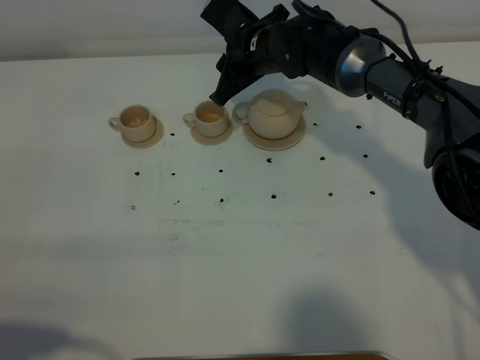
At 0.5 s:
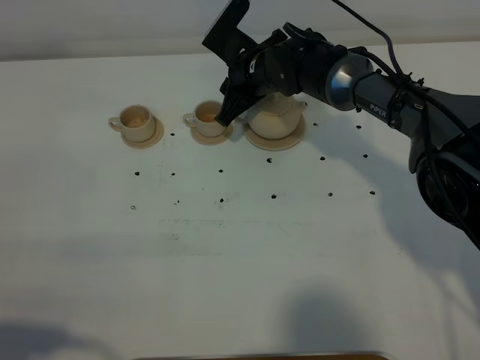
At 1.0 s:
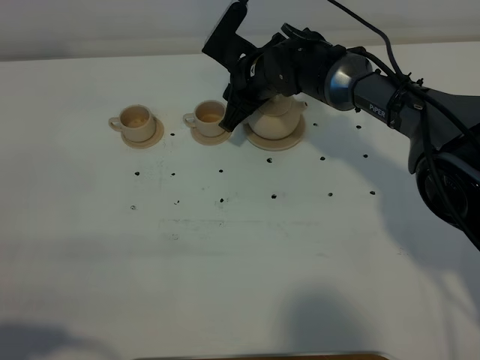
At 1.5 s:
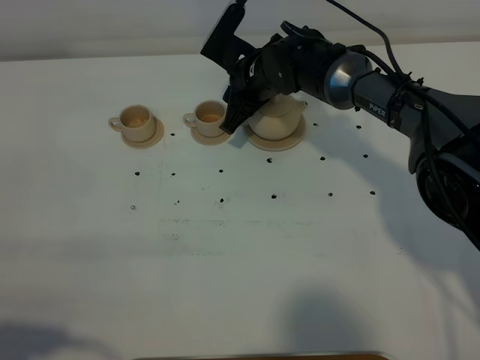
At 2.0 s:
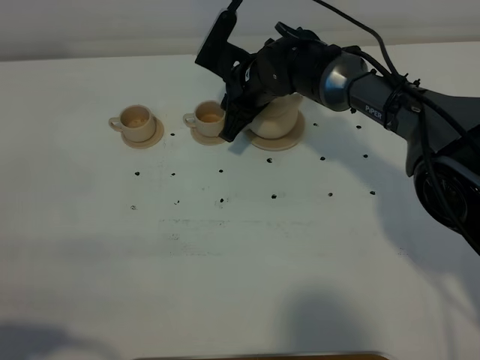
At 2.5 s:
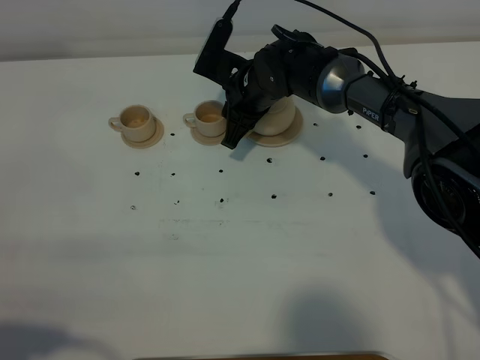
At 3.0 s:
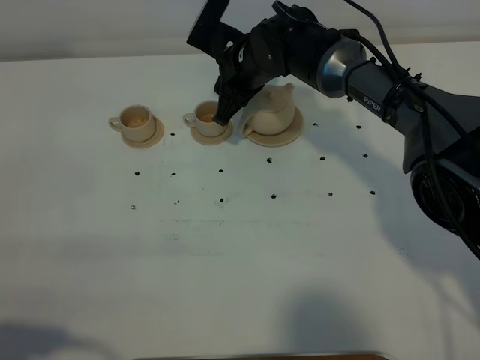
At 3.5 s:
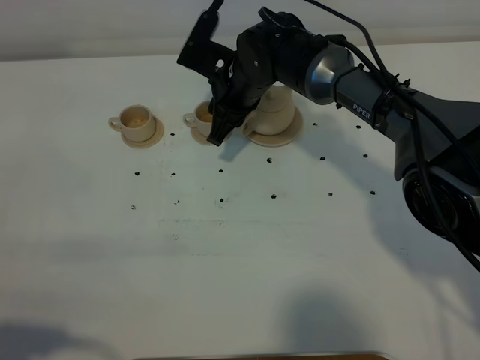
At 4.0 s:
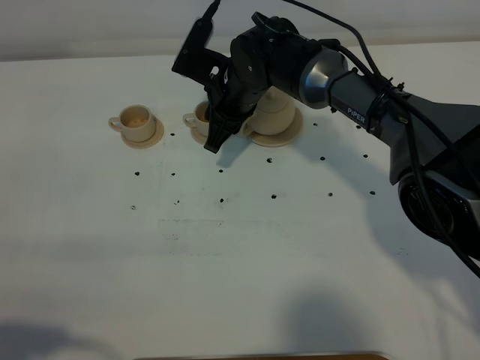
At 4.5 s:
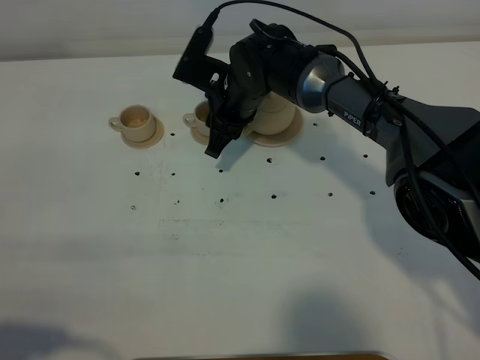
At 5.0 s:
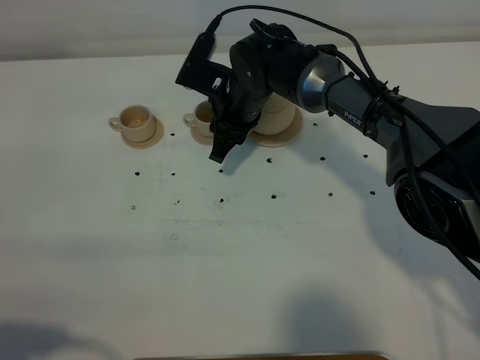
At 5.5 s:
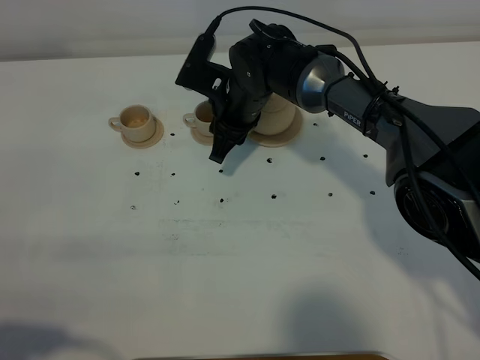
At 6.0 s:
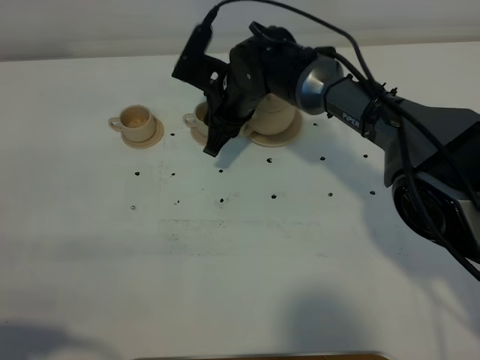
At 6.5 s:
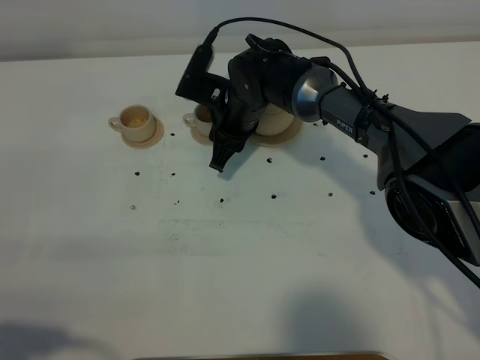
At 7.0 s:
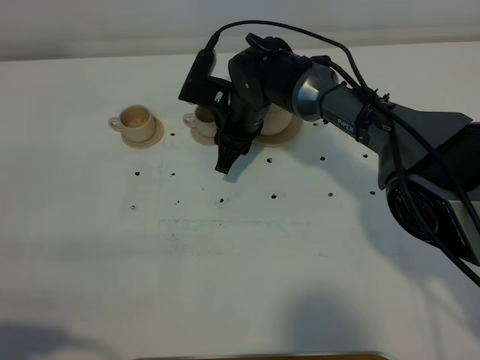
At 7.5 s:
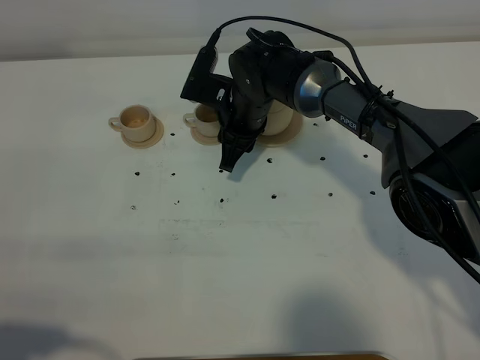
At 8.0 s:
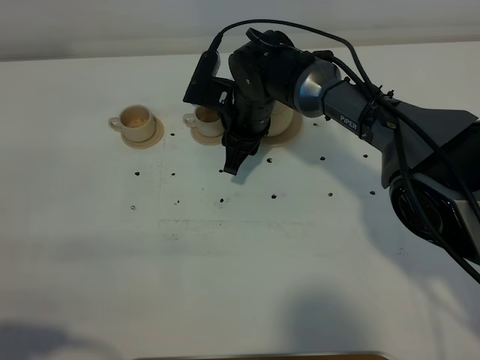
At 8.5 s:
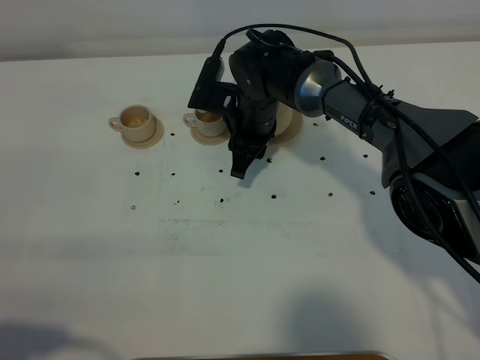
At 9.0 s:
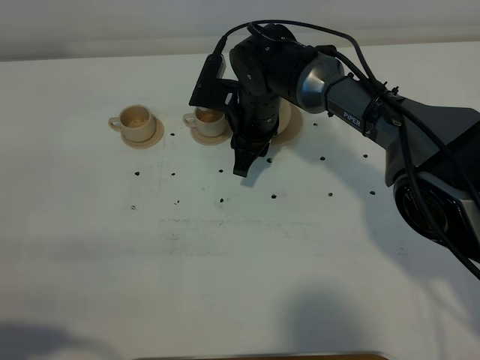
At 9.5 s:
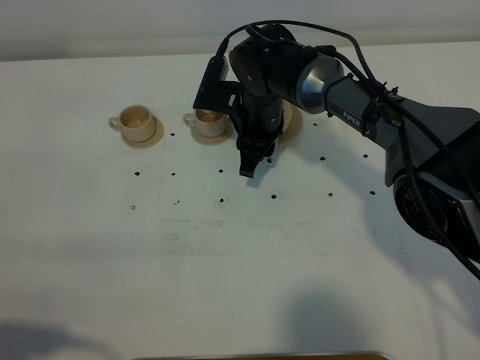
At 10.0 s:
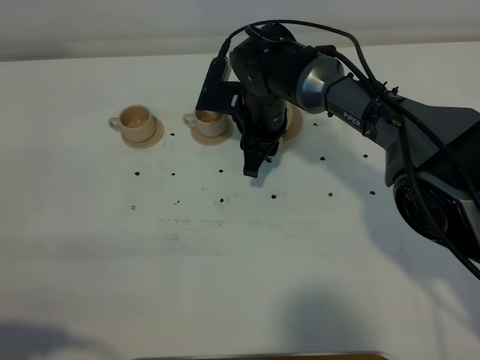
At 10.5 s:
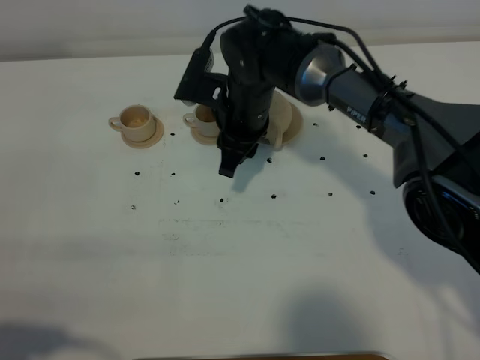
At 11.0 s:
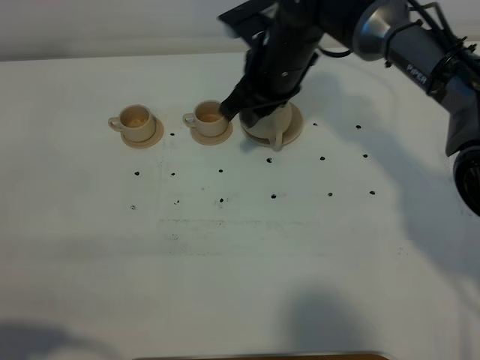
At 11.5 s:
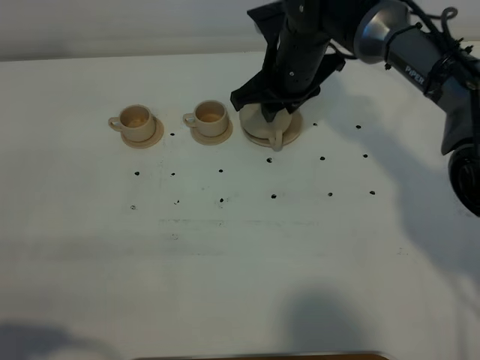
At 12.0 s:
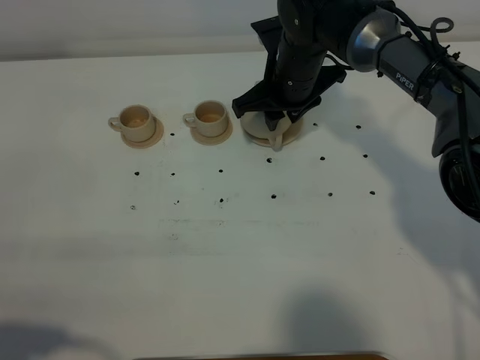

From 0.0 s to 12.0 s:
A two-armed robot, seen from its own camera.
Task of the whole recording: grasp the brown teapot and pour the tea into the two brown teacups one by one, put the brown teapot back in its original place.
From 0.0 s to 2.0 s: The grippers stay close to where they were, moving slightly.
From 2.0 s to 8.0 s: The grippers move only a little.
From 8.0 s to 10.0 s: The grippers make only small movements.
From 10.0 s to 12.0 s: The right gripper shifts by some 5 cm.

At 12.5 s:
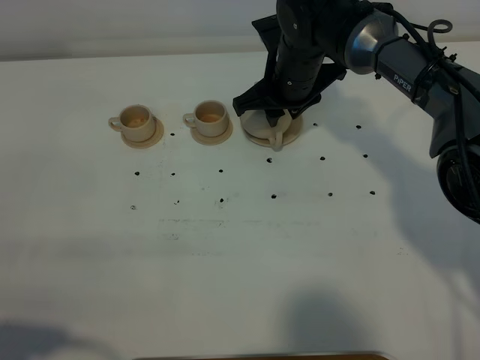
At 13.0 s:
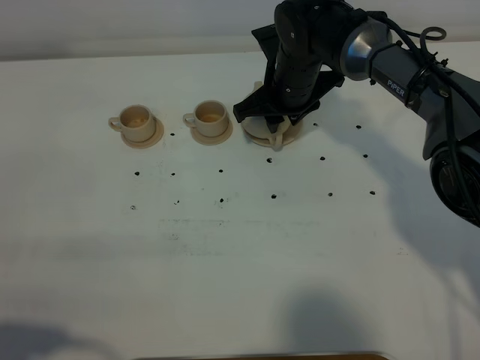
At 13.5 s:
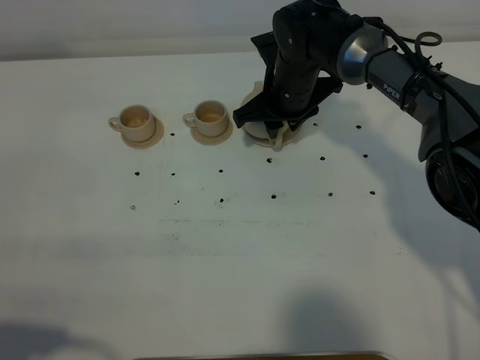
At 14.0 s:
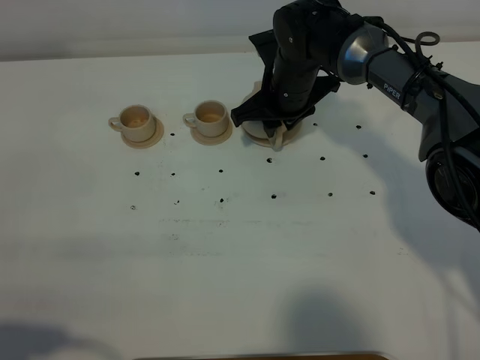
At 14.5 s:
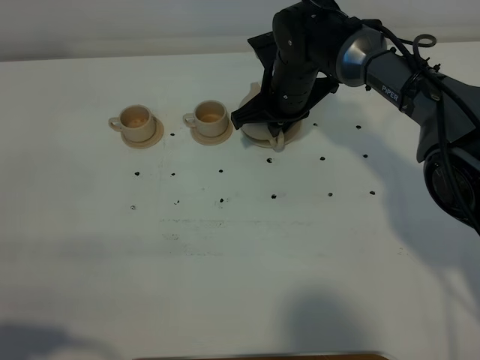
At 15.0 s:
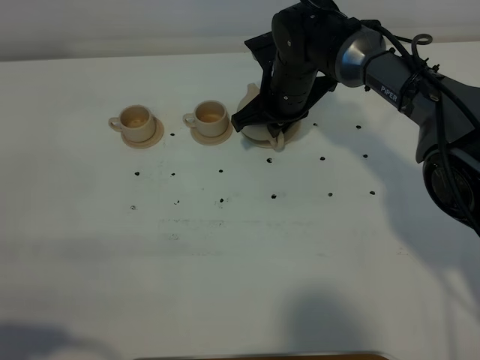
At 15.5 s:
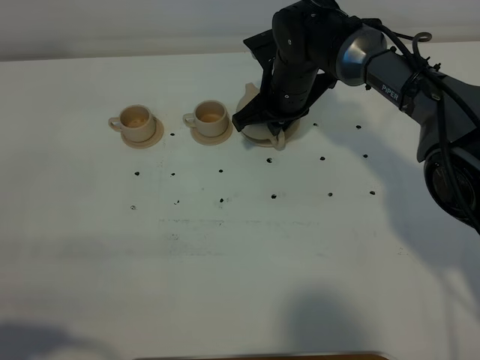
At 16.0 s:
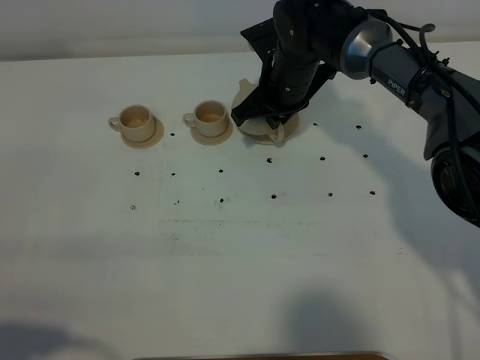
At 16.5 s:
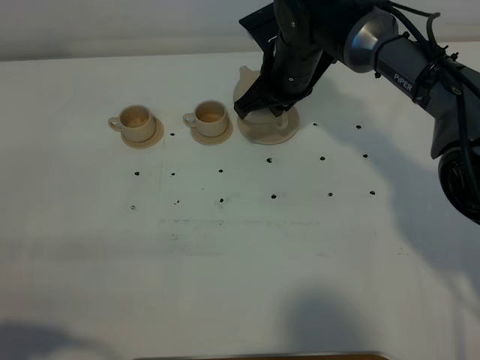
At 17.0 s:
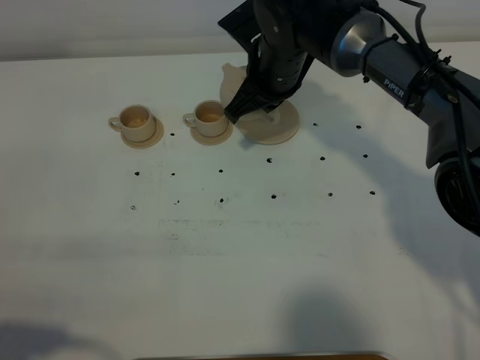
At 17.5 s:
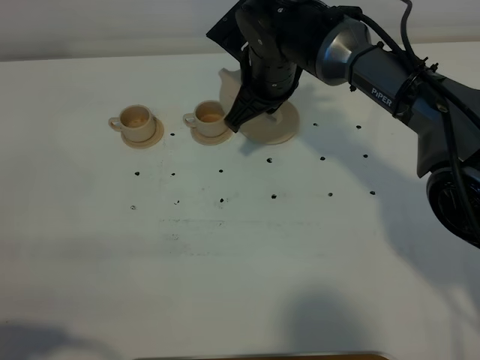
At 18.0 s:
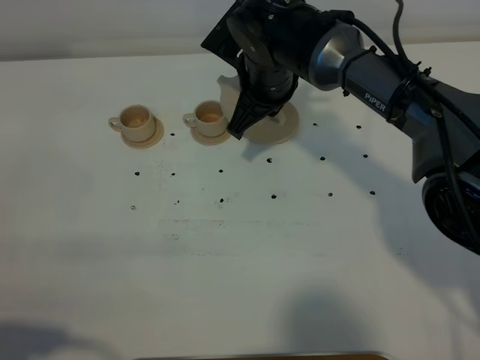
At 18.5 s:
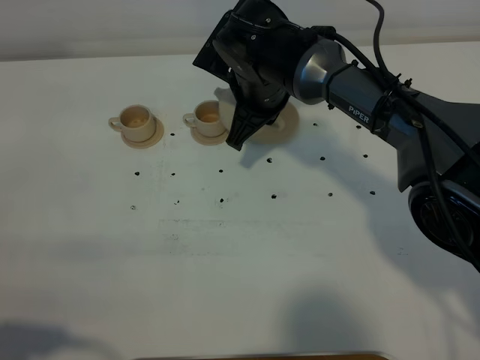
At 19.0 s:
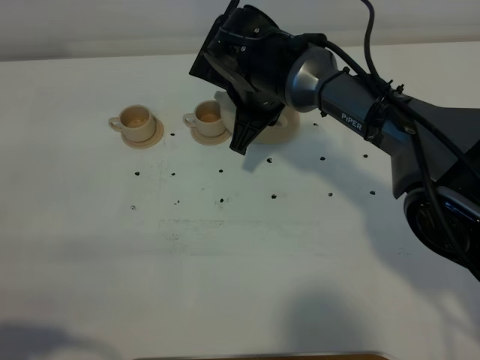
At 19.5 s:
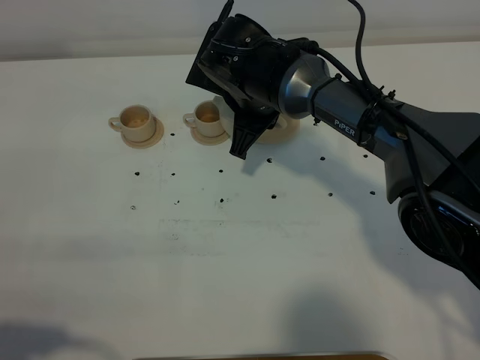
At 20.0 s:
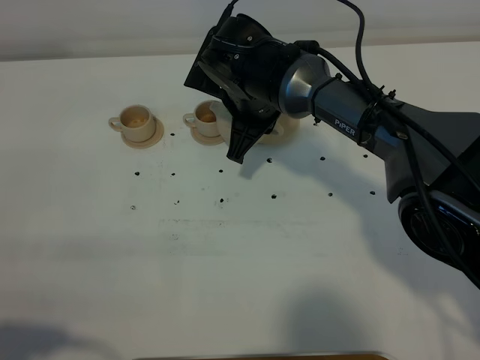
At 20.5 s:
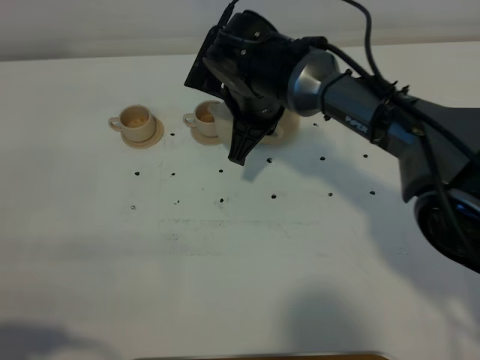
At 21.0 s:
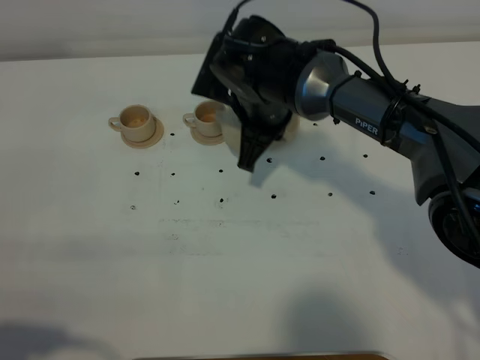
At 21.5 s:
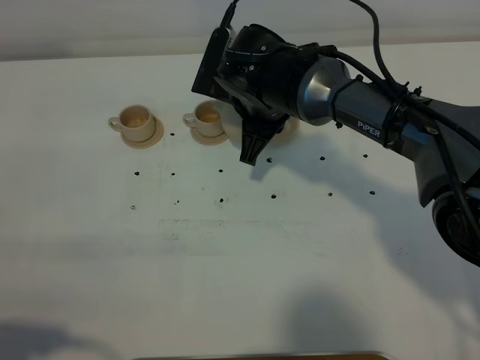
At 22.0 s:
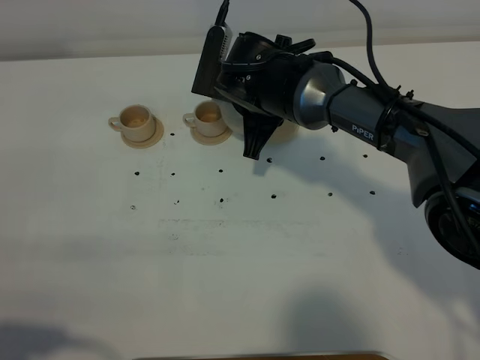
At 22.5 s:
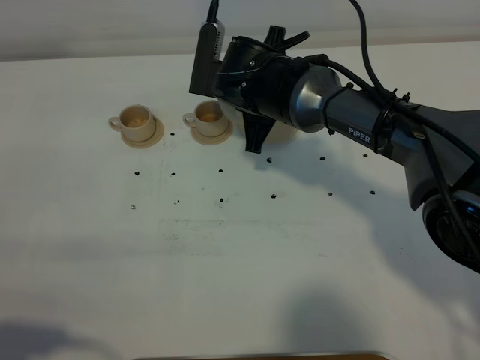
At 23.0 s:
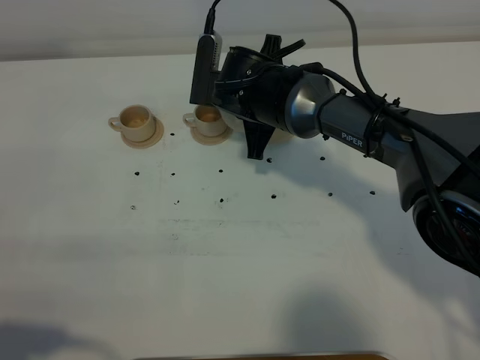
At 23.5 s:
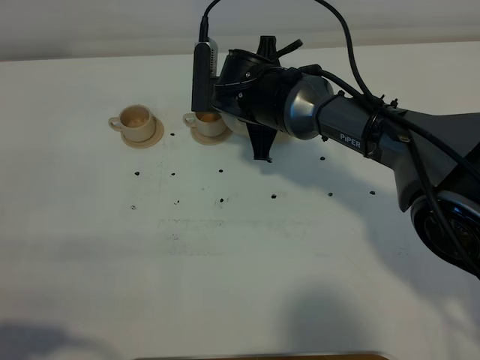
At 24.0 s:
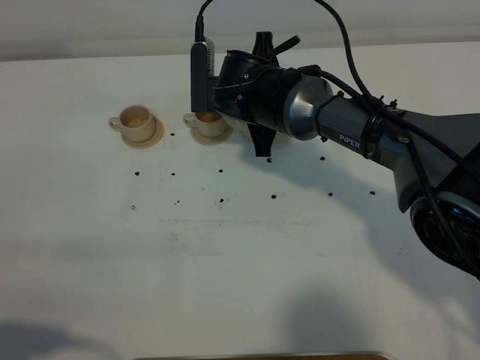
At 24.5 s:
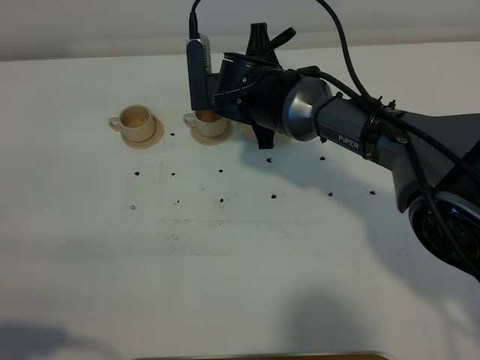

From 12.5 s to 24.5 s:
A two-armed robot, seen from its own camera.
Task of the whole recording: grasp the brown teapot and pour the tea into the two brown teacups one by one, put the brown teapot back in its original place.
Step, from 12.5 s to 16.0 s: Pick up the teapot with the right gripper.
From 12.5 s to 14.5 s: The right gripper closes up.
From 14.5 s to 16.5 s: There are only small adjustments of the grippers.
From 16.5 s to 18.5 s: The right gripper ends up roughly 5 cm from where it was.
From 18.5 s to 20.5 s: The grippers stay close to where they were, moving slightly.
From 20.5 s to 22.5 s: The grippers make only small movements.
From 22.5 s to 24.5 s: The grippers move only a little.

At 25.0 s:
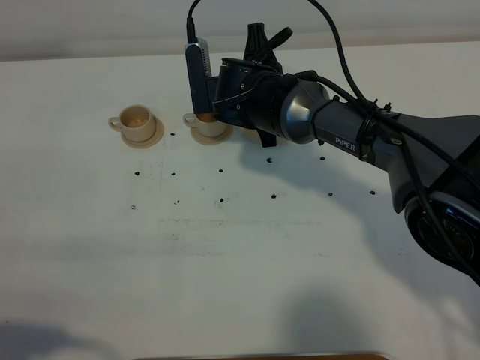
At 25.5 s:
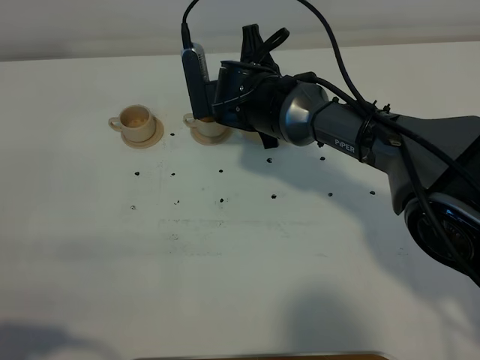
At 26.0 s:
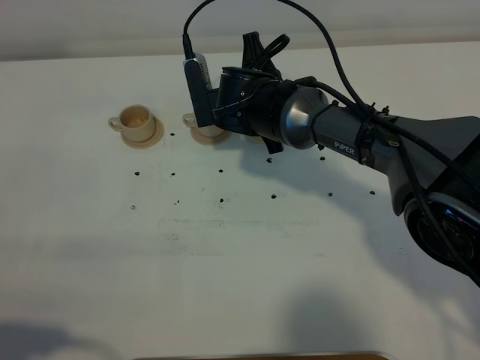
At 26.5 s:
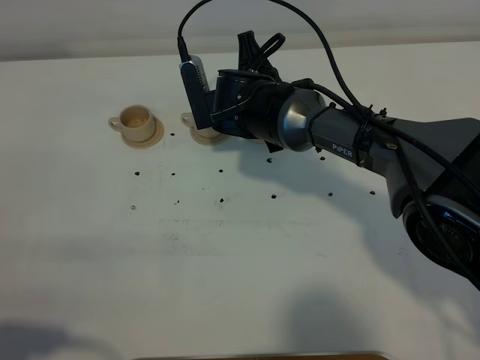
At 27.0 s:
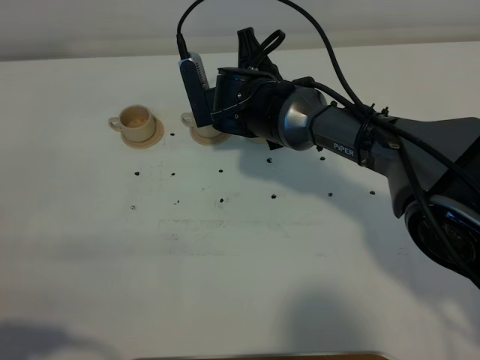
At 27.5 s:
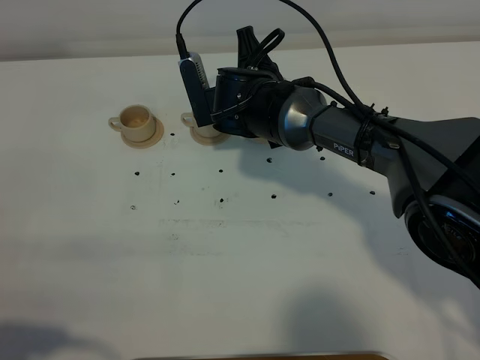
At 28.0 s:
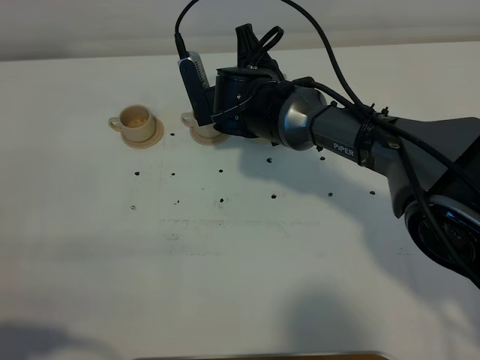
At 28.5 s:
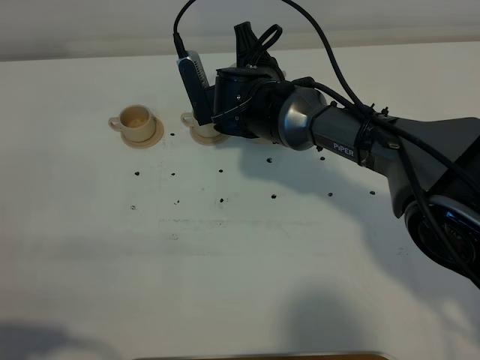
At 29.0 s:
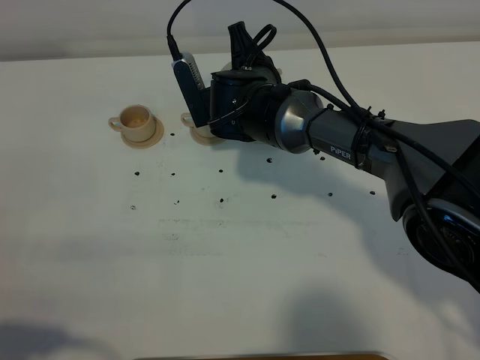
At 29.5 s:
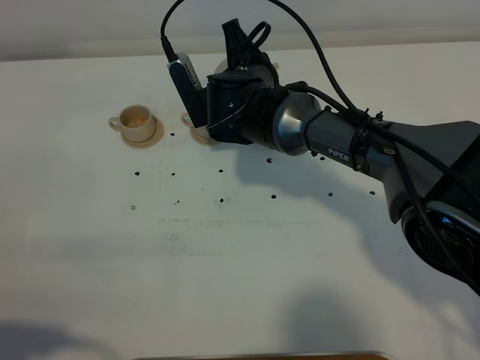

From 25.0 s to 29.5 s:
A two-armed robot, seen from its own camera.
Task of the whole recording: grasp the brown teapot and pour the tea into the two brown teacups one by one, put the brown teapot back in its original place.
From 25.0 s to 29.5 s: The grippers make only small movements.
